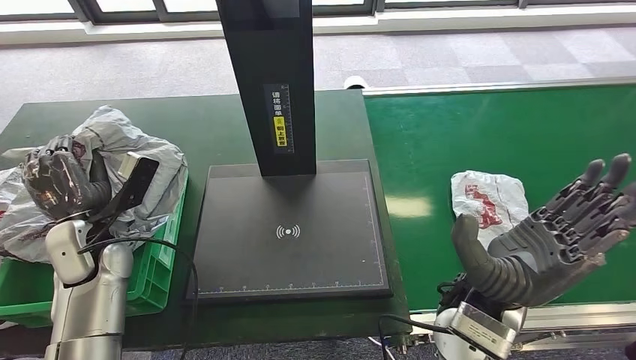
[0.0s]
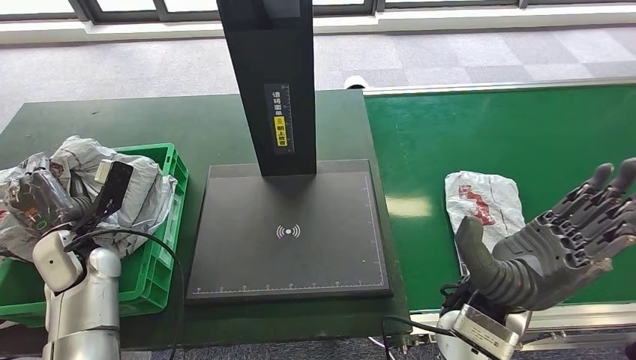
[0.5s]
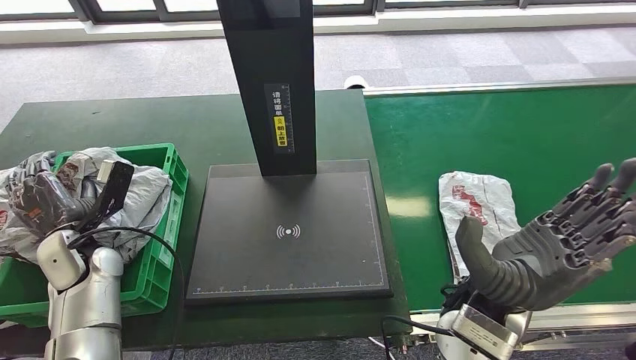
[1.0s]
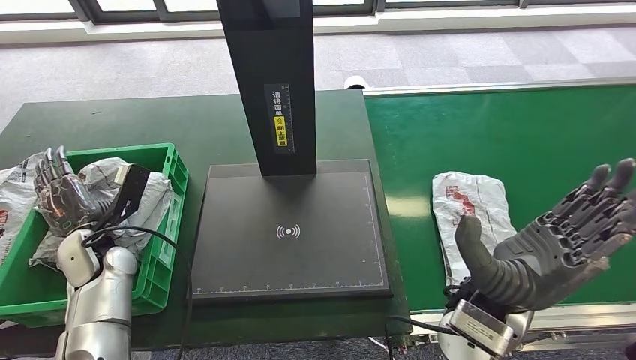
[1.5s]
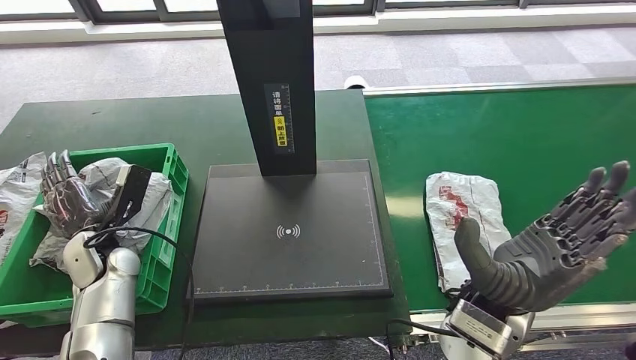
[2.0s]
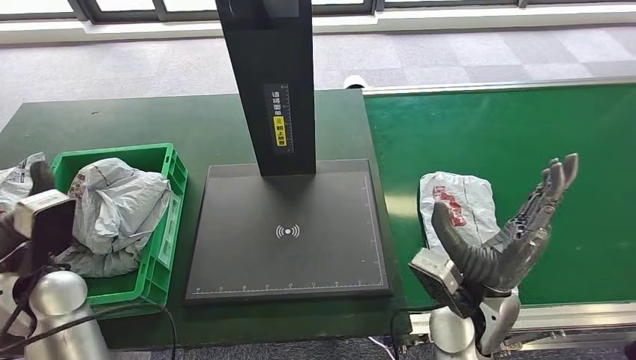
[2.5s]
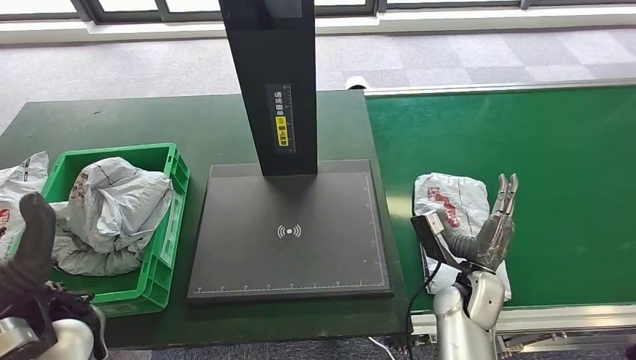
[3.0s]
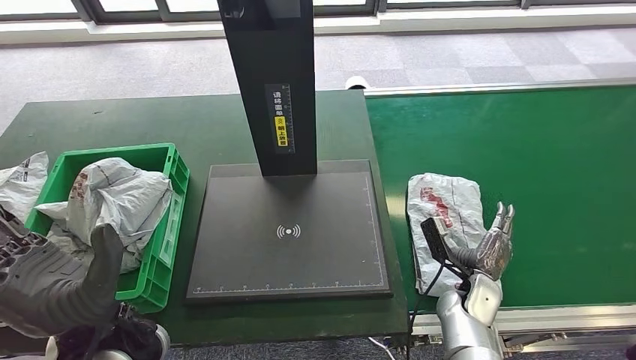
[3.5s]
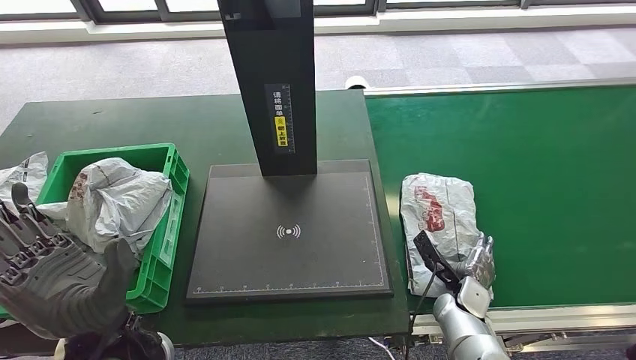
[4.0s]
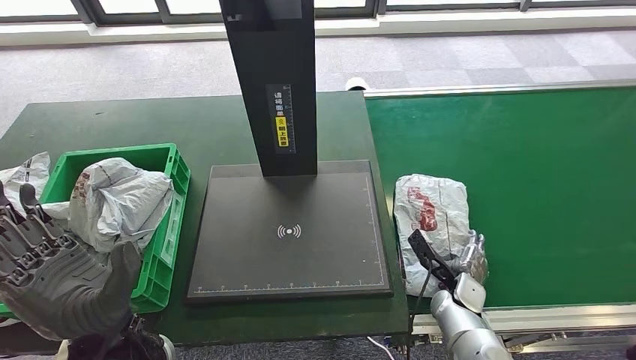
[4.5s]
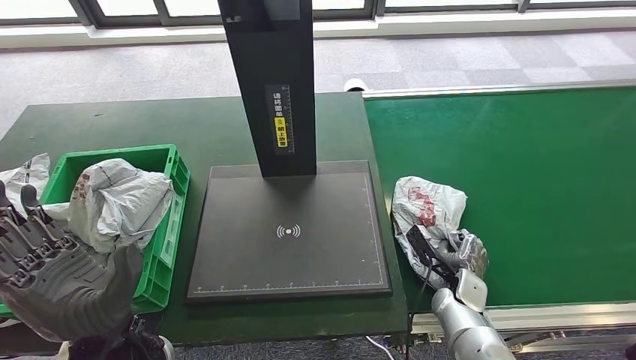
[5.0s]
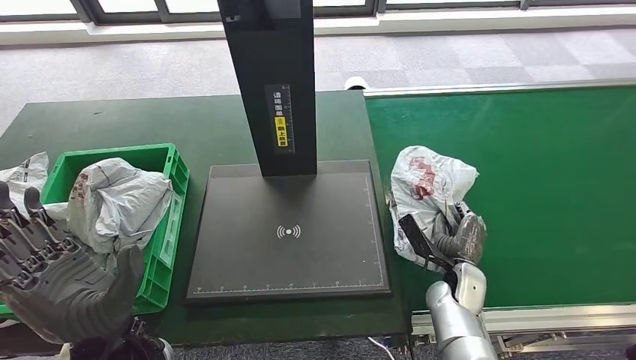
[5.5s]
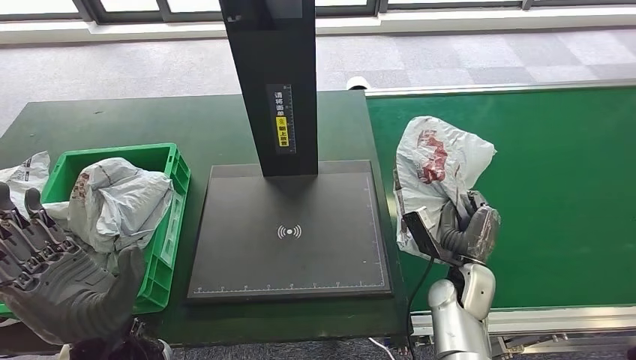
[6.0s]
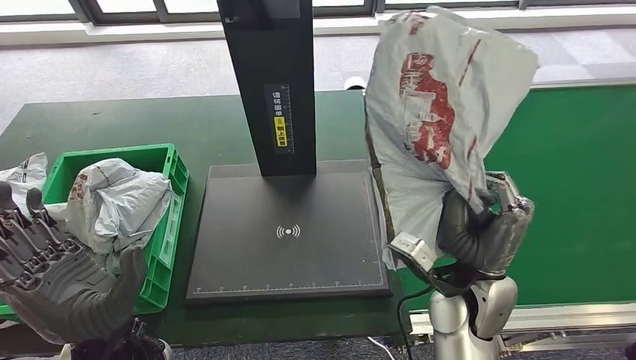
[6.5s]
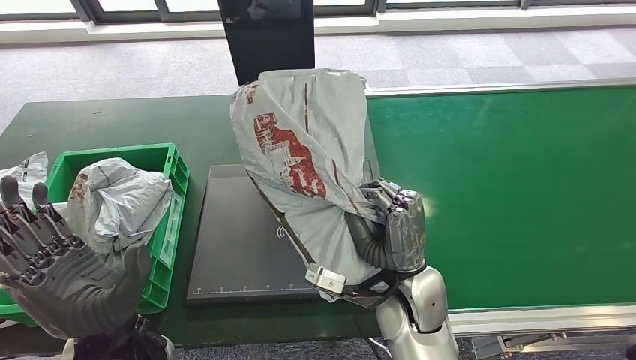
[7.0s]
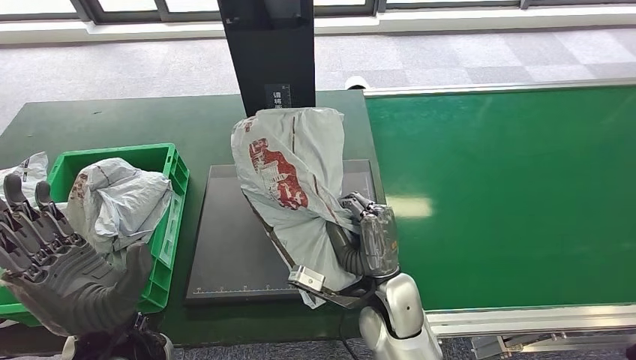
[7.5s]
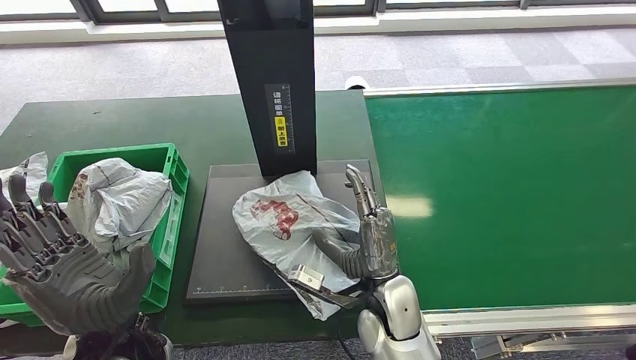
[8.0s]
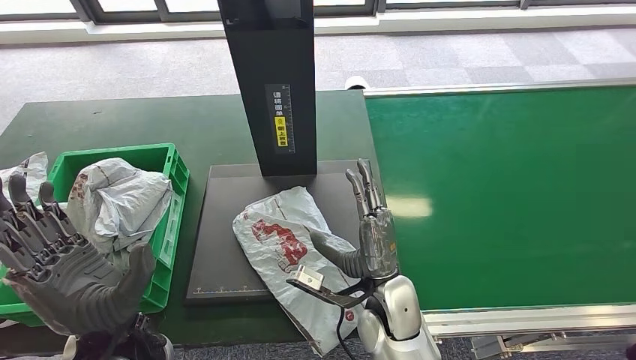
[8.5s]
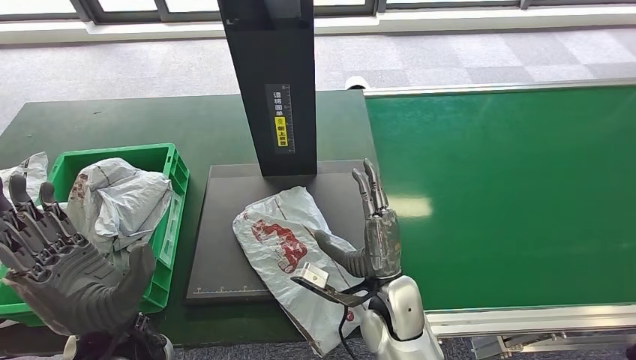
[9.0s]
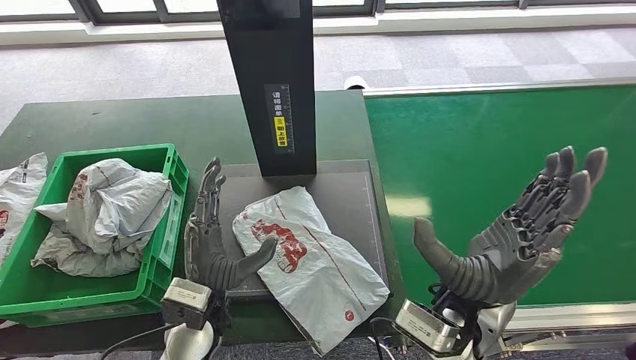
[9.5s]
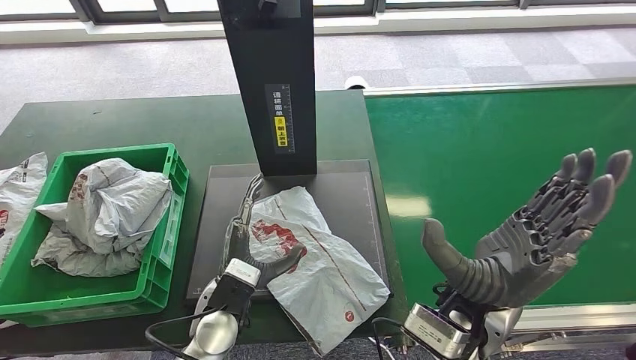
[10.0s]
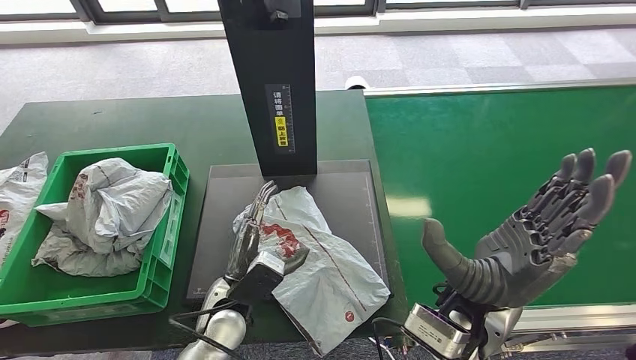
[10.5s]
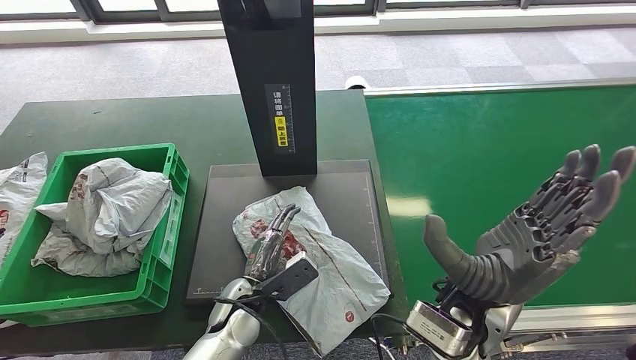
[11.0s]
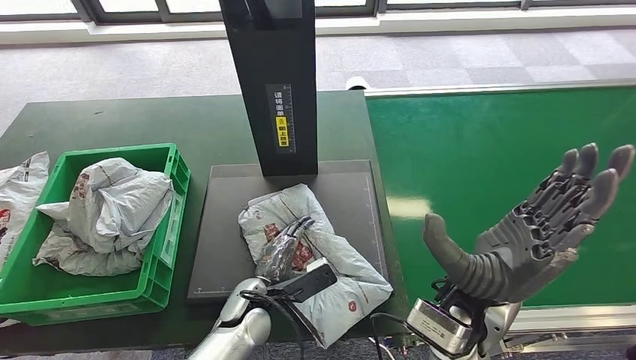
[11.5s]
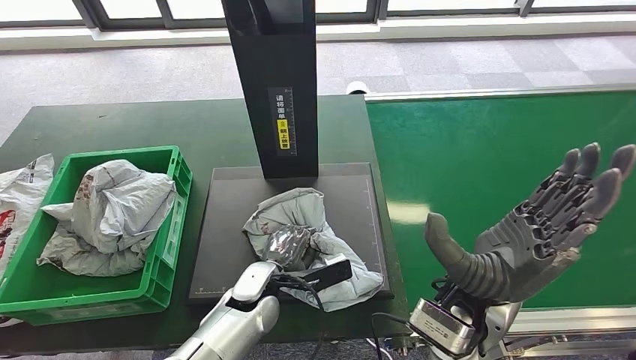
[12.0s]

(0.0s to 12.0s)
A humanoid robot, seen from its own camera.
Step, 0.0s - 2.5s: Place the parcel into the delivery box.
Step, 3.0s - 6.0s: Pick up the parcel from the conveyor belt.
Step, 6.5s - 9.5s: Place the parcel onto the inbound machine.
0.0s - 2.0s: The left hand moves downward, roughly 5 cm.
2.0s - 4.0s: The right hand heads downward, covering about 25 cm. Meanwhile the left hand is displaced backward, to the right and upward by approximately 20 cm.
4.0s - 6.0s: The right hand travels upward by some 5 cm.
8.0s - 10.0s: The right hand goes about 15 cm upward and to the right. Meanwhile the left hand goes roughly 15 cm downward and to the right.

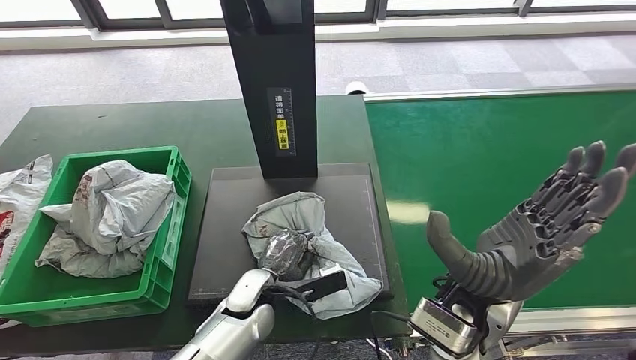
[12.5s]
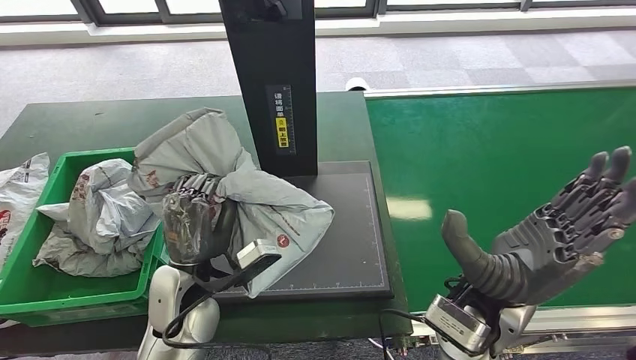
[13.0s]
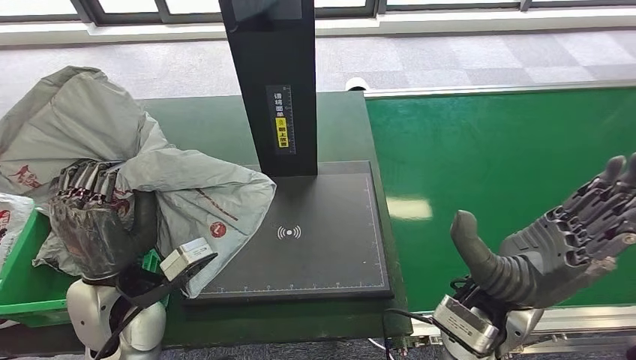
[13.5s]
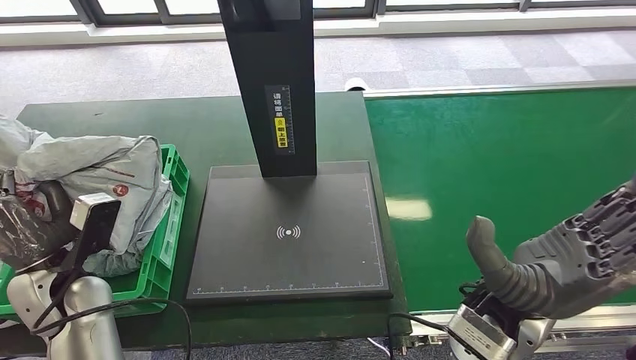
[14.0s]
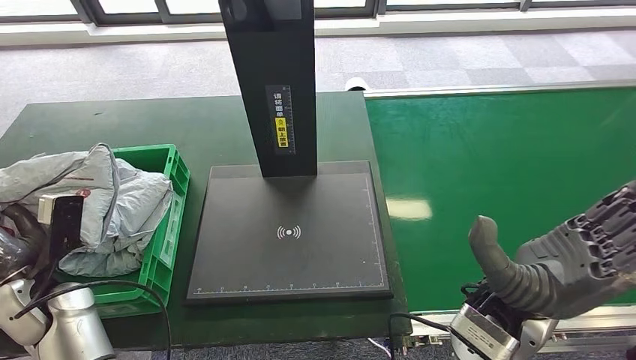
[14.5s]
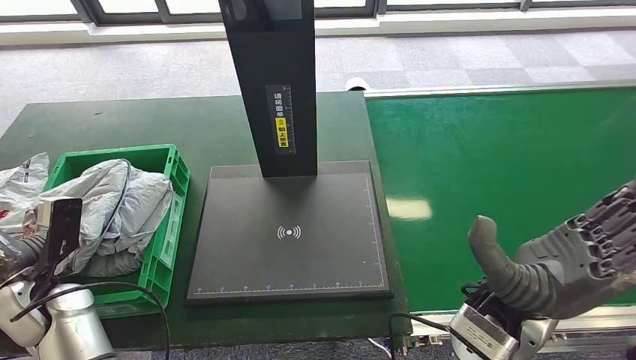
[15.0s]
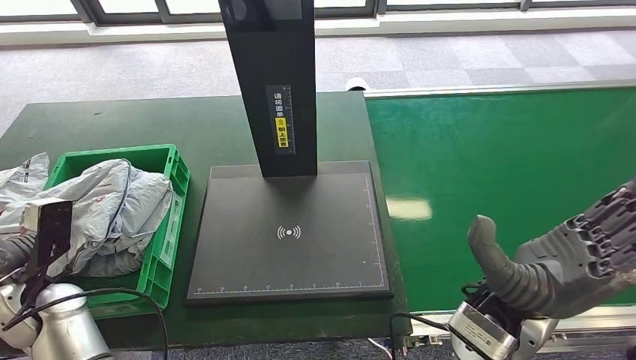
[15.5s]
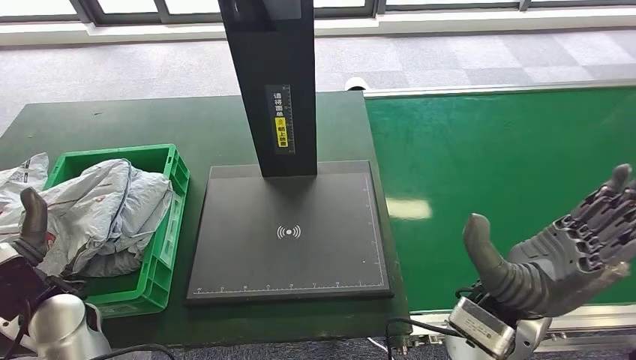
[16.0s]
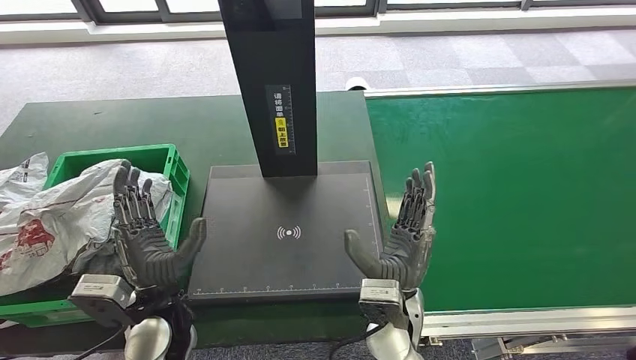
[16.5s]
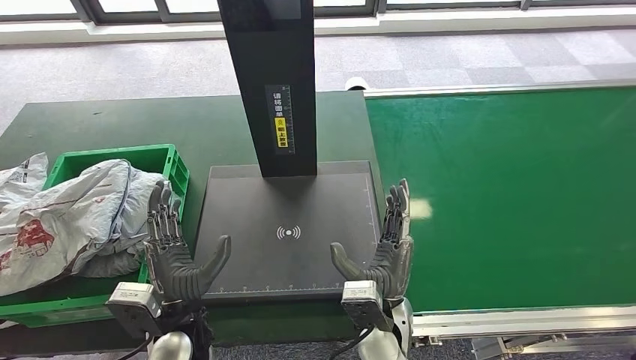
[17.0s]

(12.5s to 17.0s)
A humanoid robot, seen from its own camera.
Step, 13.5s - 17.0s: Place the parcel into the delivery box.

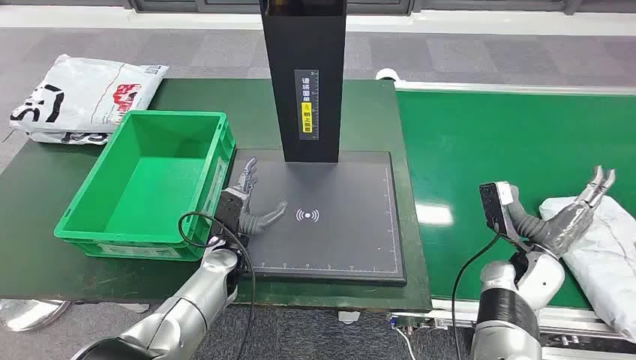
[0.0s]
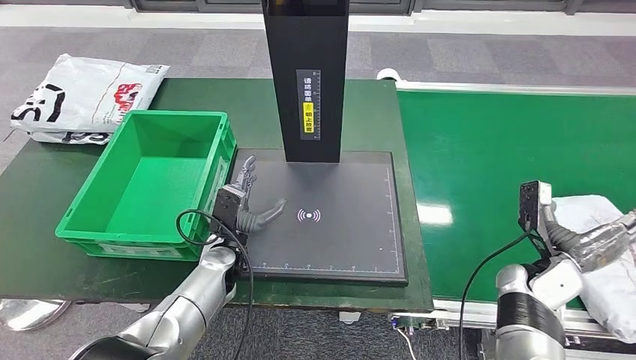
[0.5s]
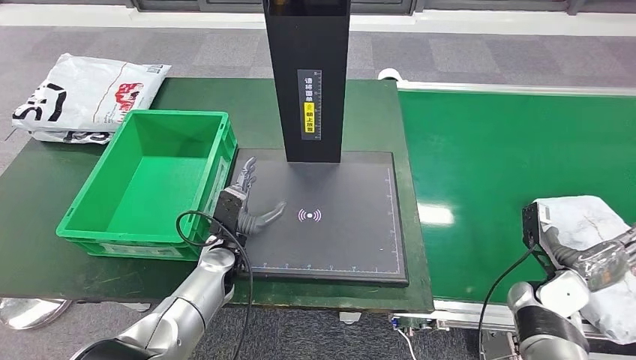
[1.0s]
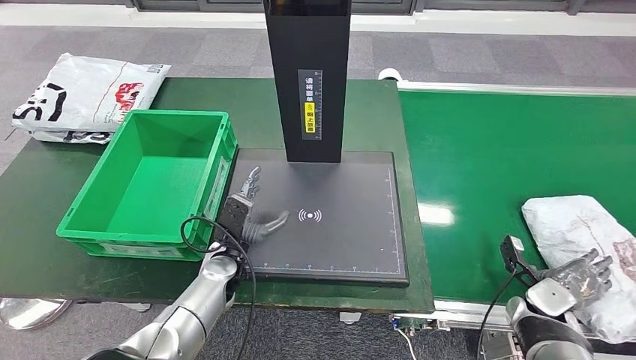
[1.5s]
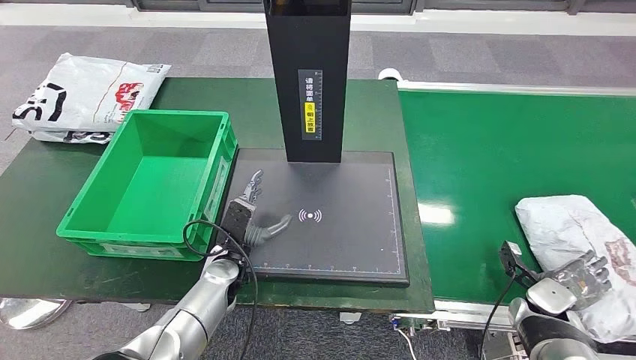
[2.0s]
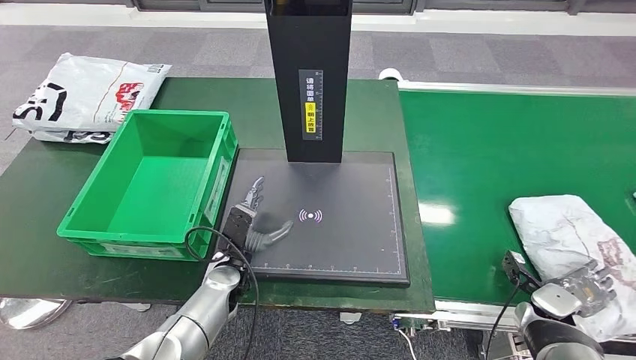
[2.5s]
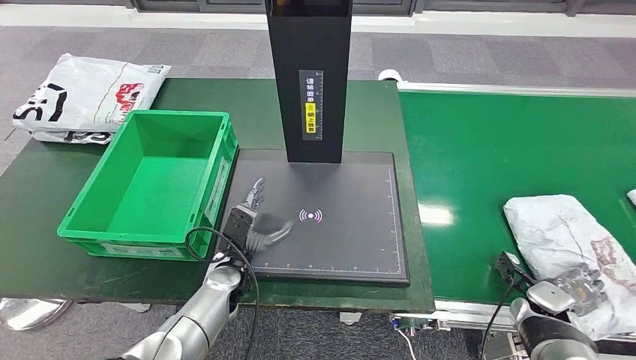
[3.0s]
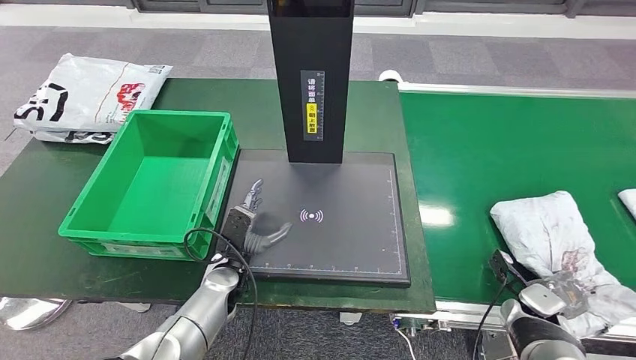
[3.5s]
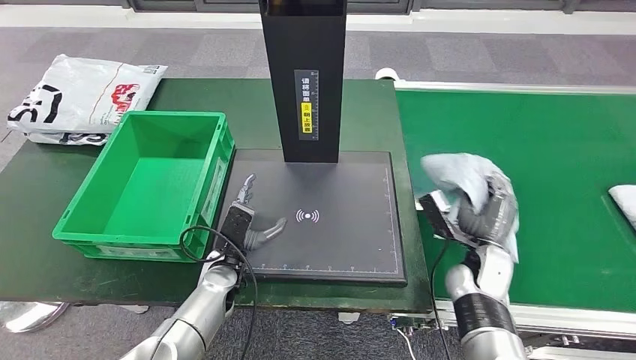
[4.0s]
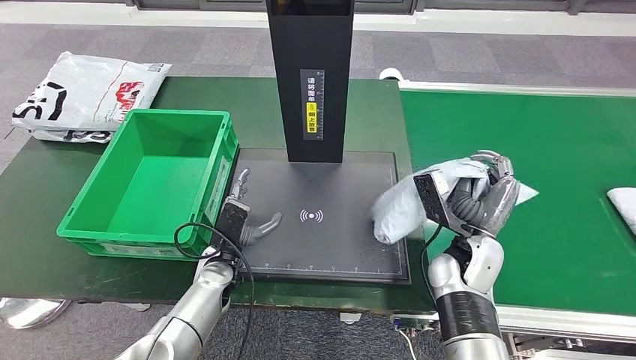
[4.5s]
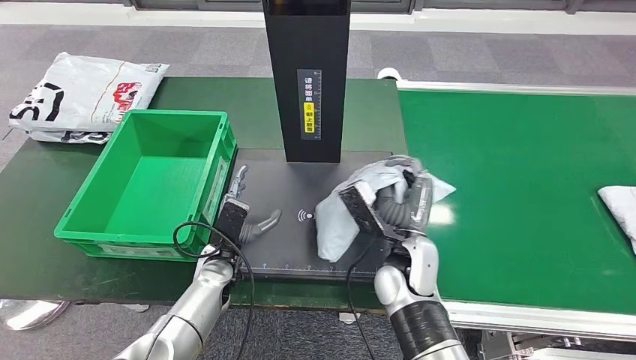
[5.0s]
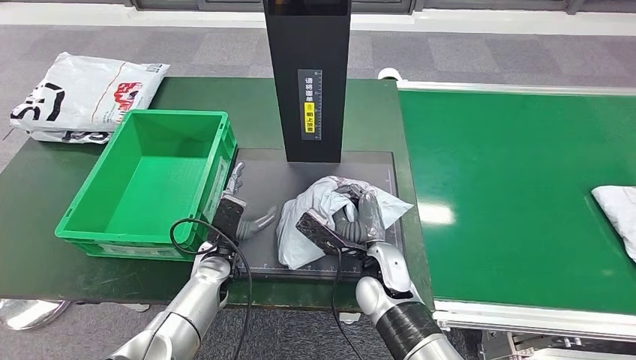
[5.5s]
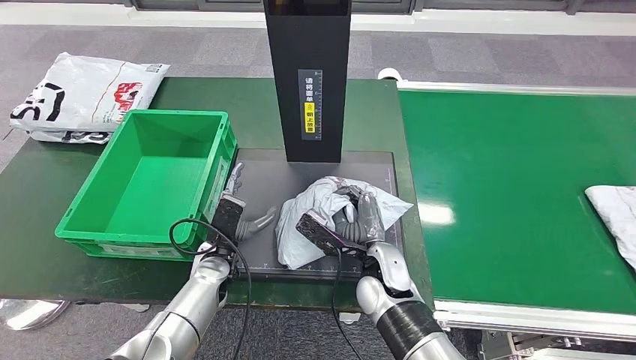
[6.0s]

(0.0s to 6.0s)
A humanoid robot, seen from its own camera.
Step, 0.0s - 4.5s: Take the parcel off the conveyor belt.
